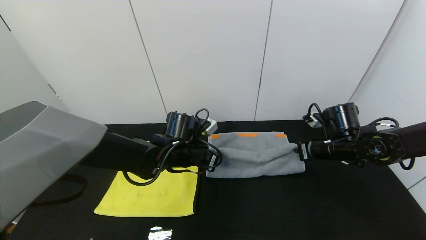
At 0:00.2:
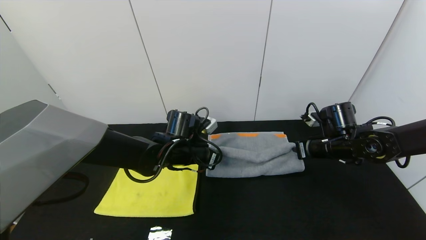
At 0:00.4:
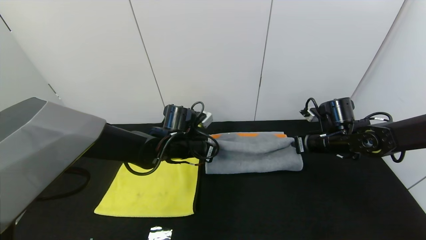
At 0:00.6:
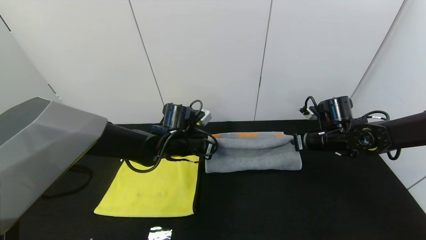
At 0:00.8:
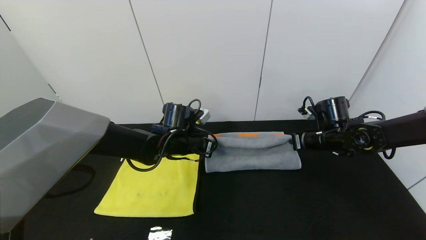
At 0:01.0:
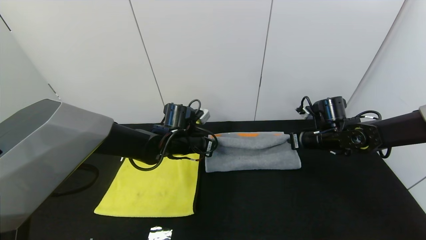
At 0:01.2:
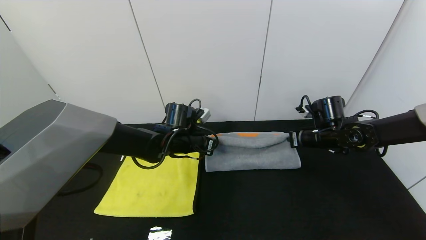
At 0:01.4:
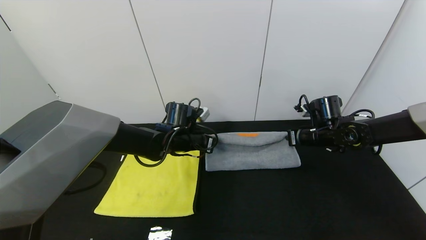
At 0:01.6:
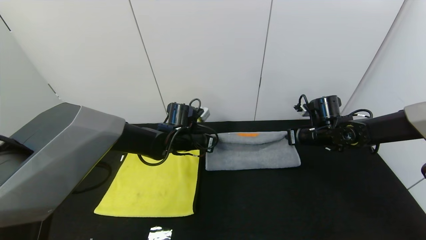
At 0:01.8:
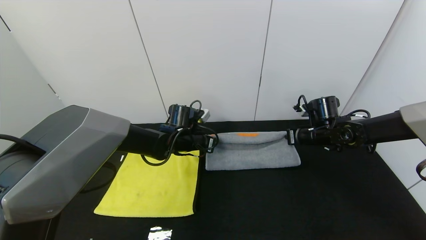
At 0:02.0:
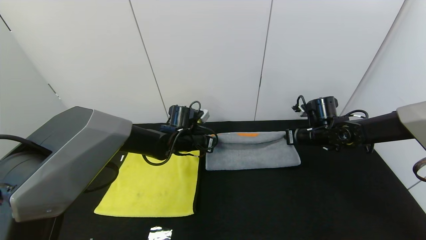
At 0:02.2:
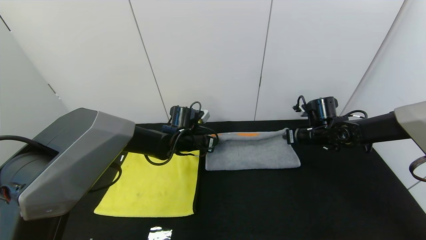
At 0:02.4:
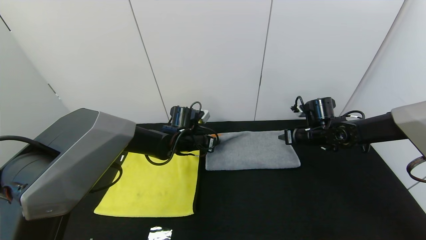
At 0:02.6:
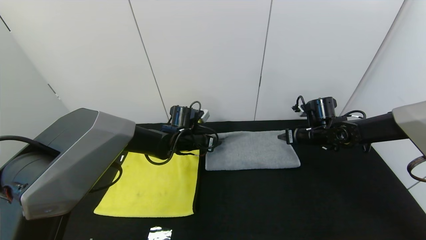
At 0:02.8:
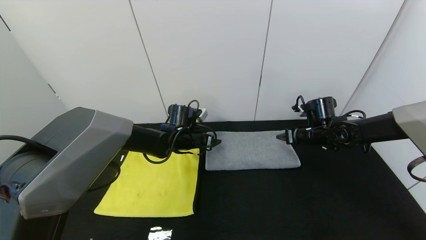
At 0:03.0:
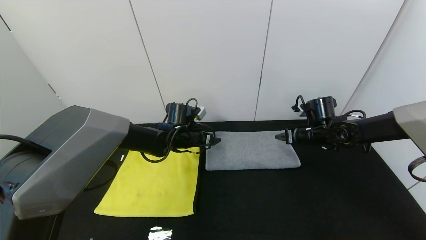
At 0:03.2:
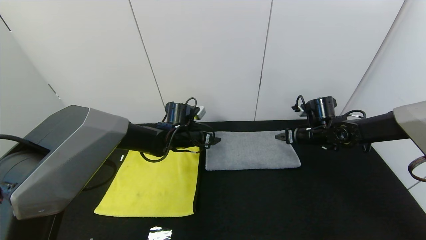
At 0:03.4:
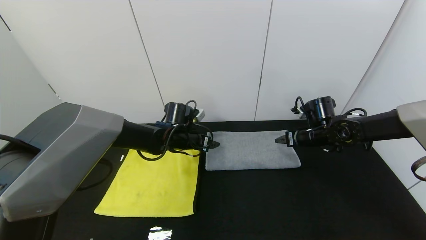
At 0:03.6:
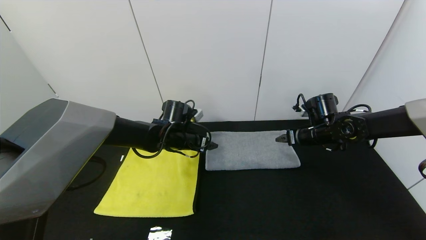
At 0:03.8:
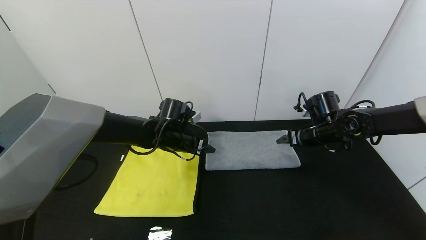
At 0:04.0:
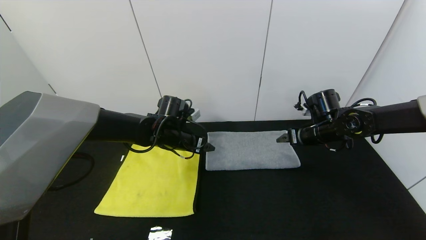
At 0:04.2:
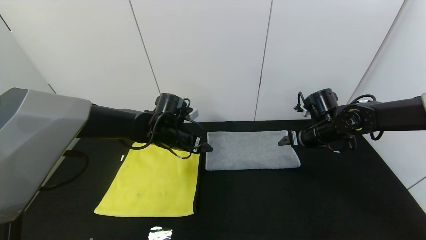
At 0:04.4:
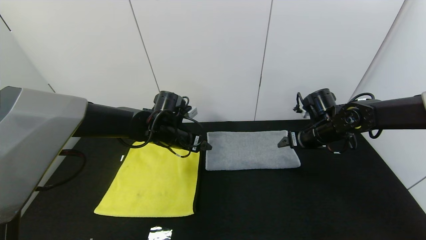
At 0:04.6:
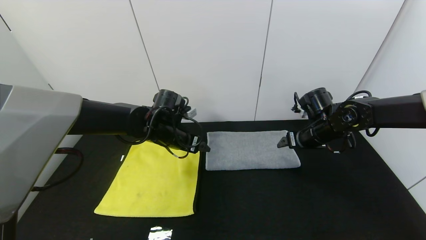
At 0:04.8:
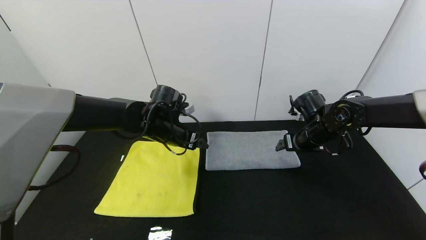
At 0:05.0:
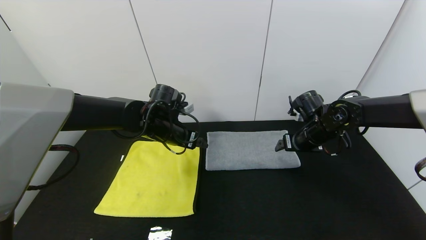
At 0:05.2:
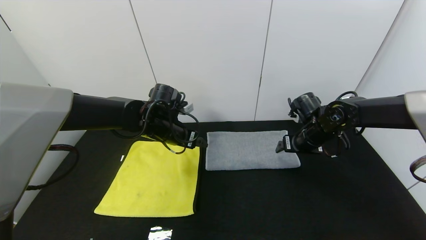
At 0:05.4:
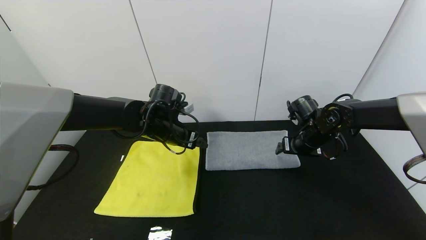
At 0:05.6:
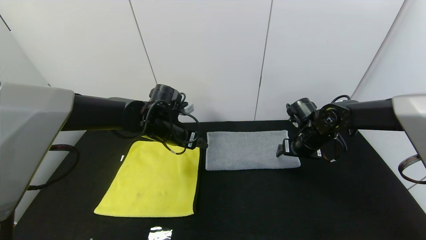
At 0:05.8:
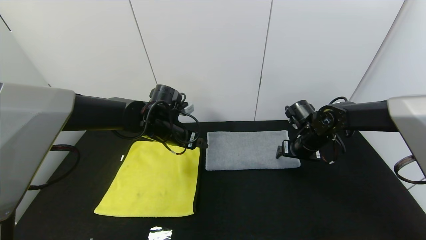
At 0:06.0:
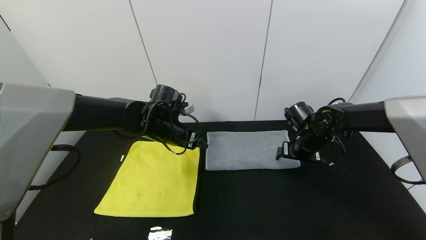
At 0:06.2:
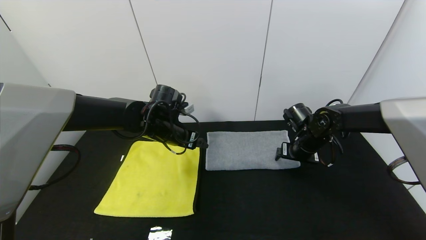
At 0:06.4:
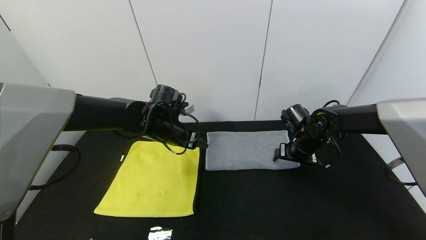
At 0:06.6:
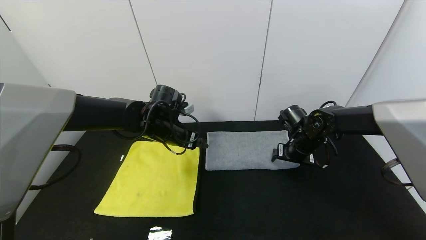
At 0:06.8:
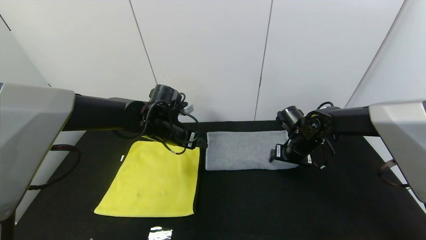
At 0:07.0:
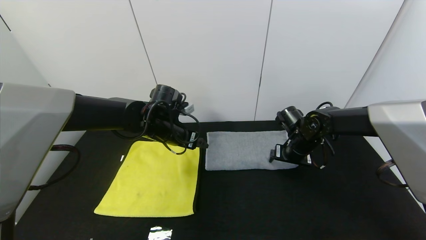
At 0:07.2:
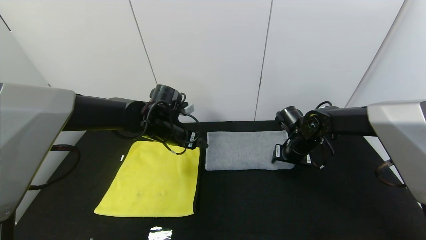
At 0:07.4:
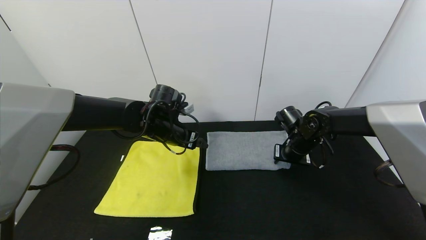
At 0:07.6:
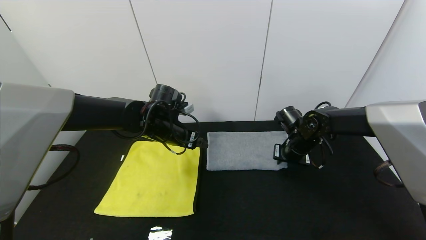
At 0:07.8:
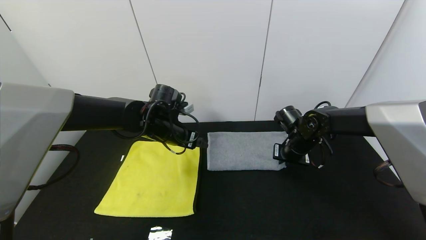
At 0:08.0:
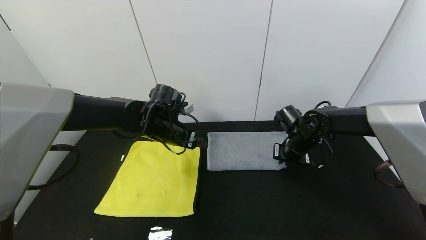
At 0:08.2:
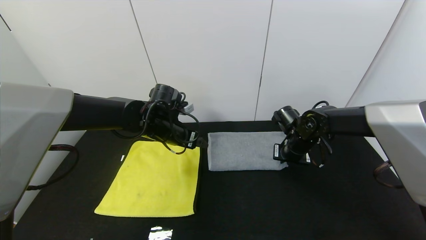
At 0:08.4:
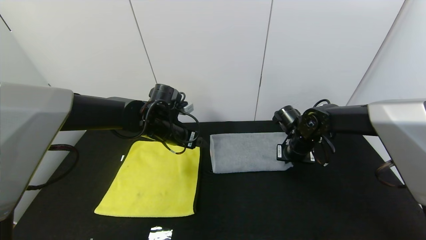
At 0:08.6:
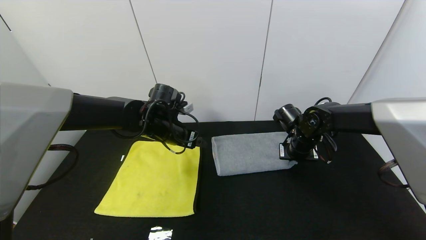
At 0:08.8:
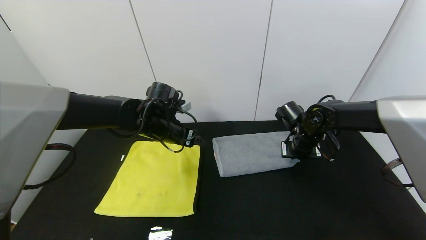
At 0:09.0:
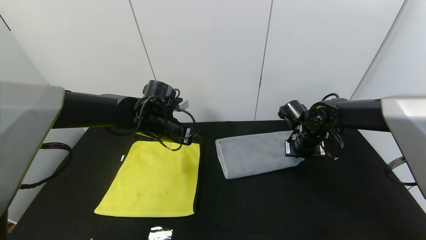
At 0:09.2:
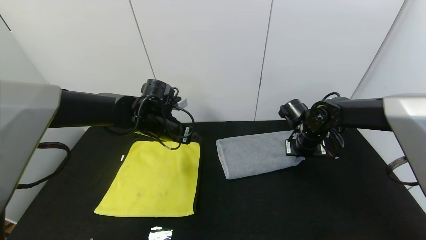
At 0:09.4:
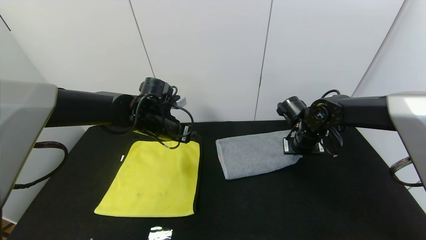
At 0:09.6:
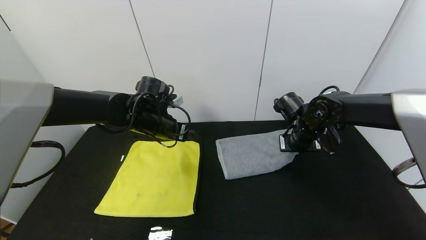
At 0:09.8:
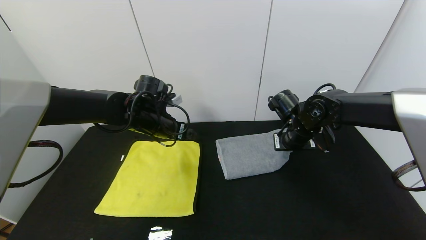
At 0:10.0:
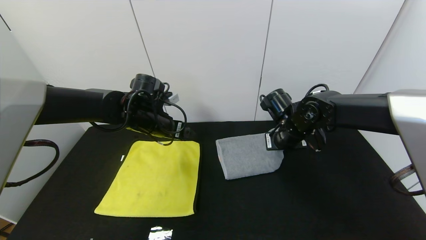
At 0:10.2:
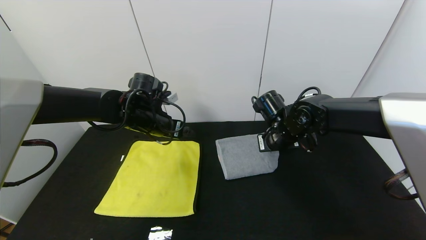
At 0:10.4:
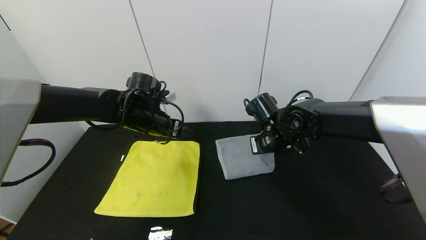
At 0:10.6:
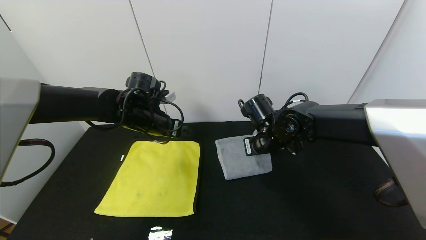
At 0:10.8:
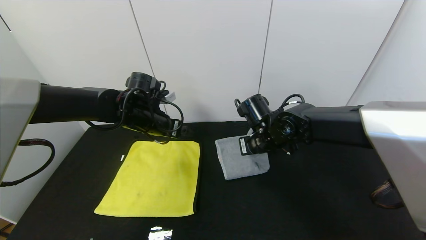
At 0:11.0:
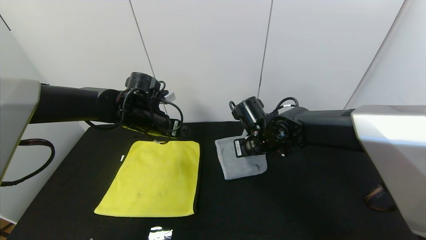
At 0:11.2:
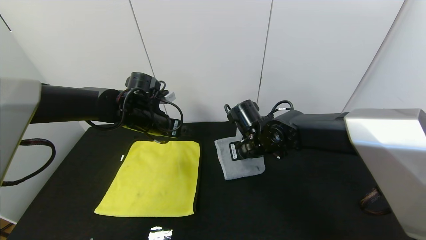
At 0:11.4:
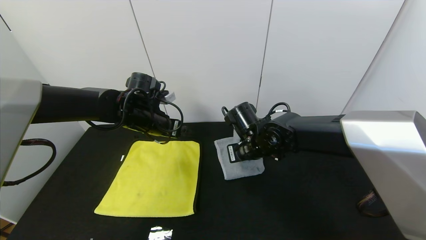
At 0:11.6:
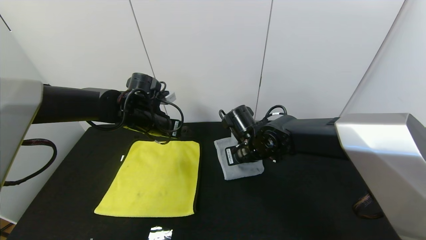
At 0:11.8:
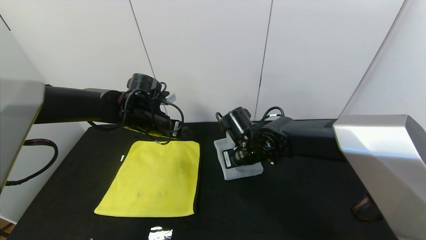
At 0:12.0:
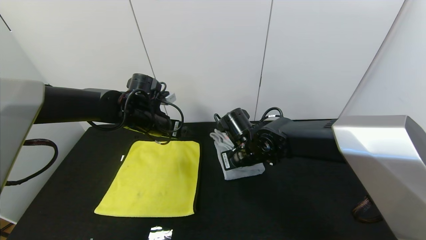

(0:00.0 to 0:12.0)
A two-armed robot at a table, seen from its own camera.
Task of the whole recording: Use the gripper to fold the yellow towel and grey towel in half twice,then put the yellow towel on the grey towel.
Step, 0:00.0 - 0:02.8: Fold the gray towel upwards with the left gripper.
Step, 0:00.0 - 0:02.8: Fold the gray towel upwards with the right gripper.
0:00.0 - 0:01.6: The two grippers go about 5 cm forward.
0:01.6 - 0:03.0: The left gripper opens up, while the right gripper opens its fingers.
0:03.0 - 0:04.4: The left gripper shifts by roughly 5 cm. Meanwhile the right gripper changes place by about 5 cm.
0:04.4 - 0:06.0: The grippers make only small movements.
0:06.0 - 0:07.6: The right gripper closes up.
0:07.6 - 0:09.0: The grippers move only a little.
0:09.0 - 0:10.4: The right gripper goes about 10 cm to the left.
0:10.4 - 0:12.0: The right gripper moves to the left, approximately 5 cm, and opens its fingers.

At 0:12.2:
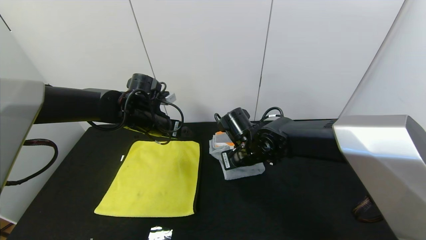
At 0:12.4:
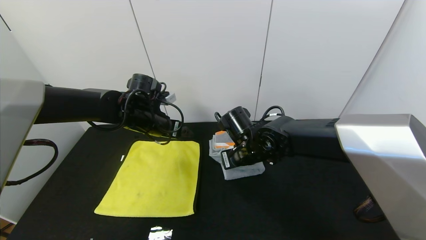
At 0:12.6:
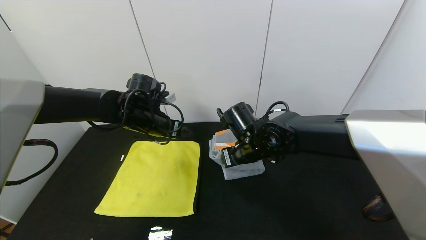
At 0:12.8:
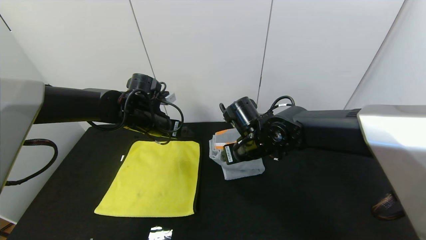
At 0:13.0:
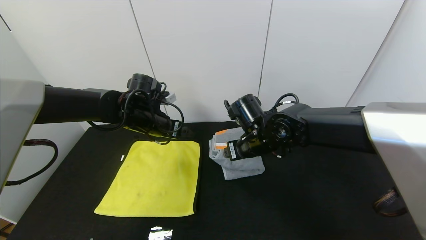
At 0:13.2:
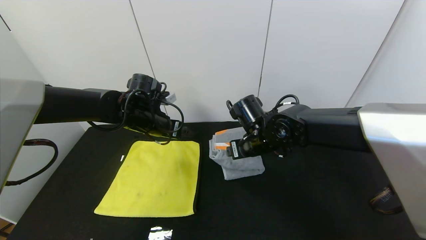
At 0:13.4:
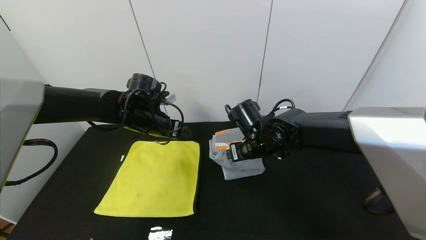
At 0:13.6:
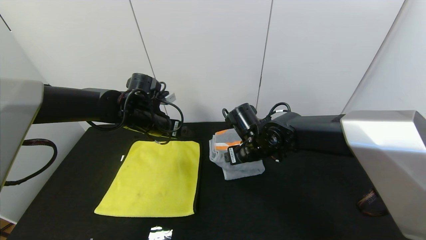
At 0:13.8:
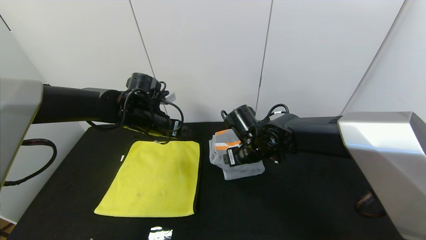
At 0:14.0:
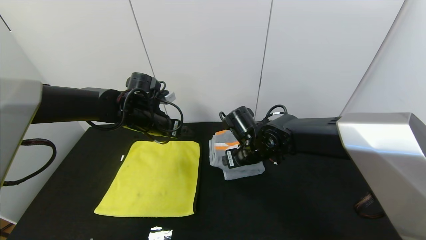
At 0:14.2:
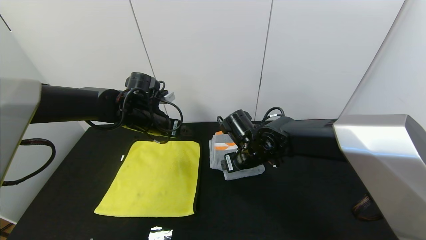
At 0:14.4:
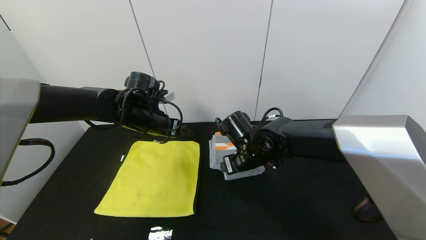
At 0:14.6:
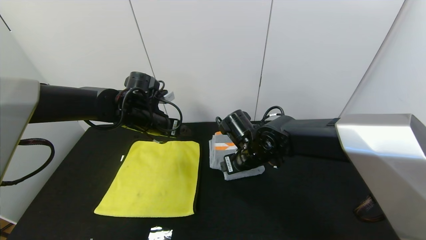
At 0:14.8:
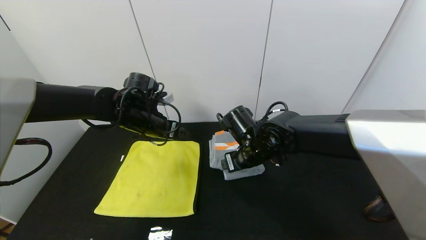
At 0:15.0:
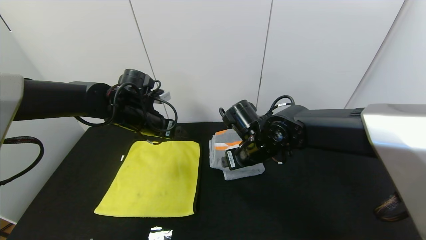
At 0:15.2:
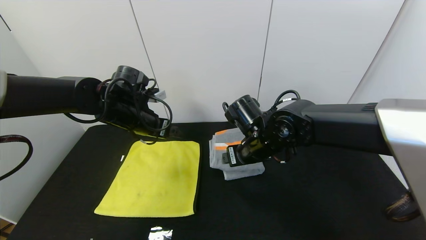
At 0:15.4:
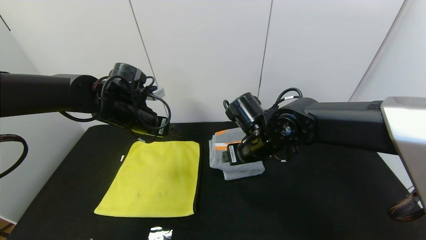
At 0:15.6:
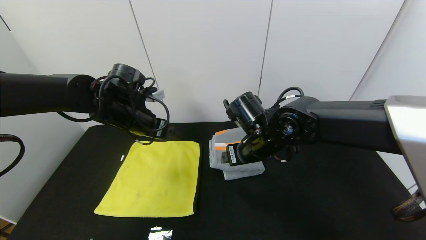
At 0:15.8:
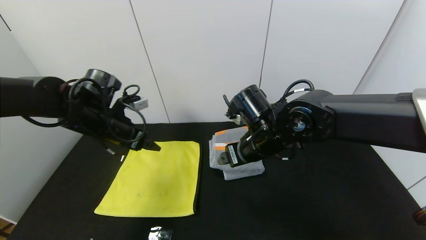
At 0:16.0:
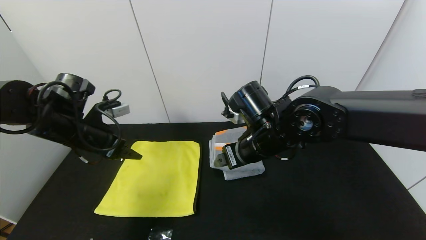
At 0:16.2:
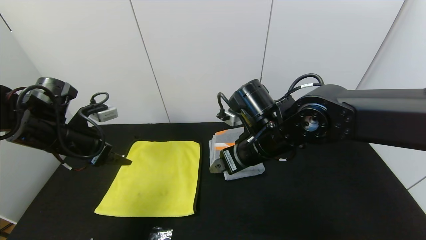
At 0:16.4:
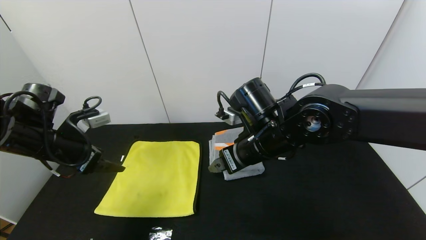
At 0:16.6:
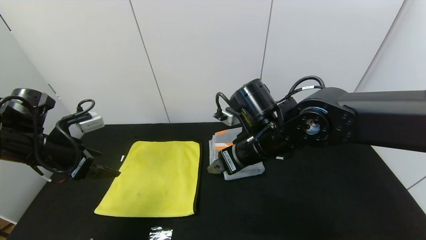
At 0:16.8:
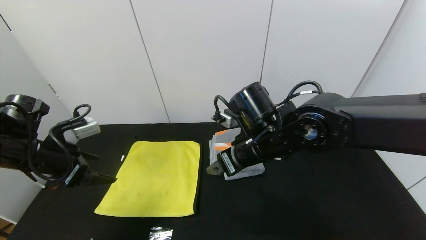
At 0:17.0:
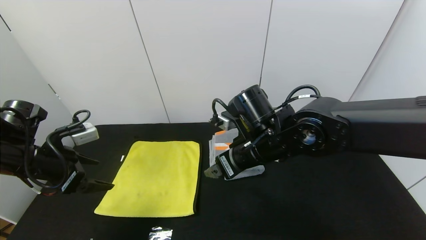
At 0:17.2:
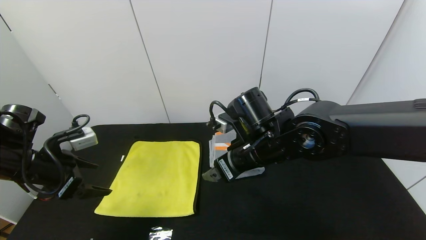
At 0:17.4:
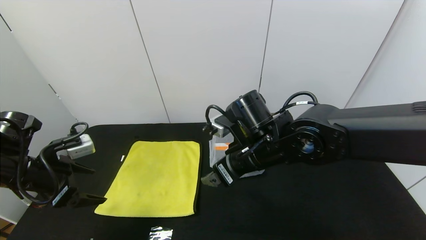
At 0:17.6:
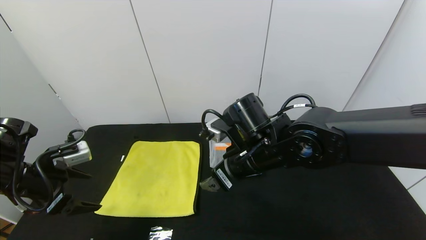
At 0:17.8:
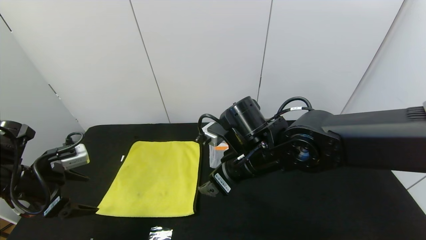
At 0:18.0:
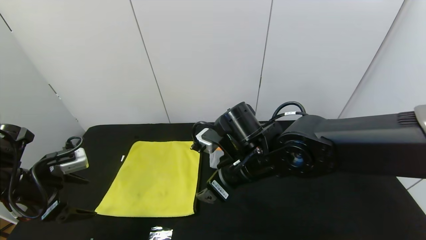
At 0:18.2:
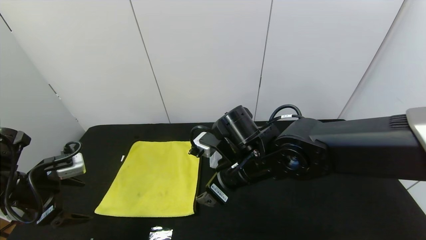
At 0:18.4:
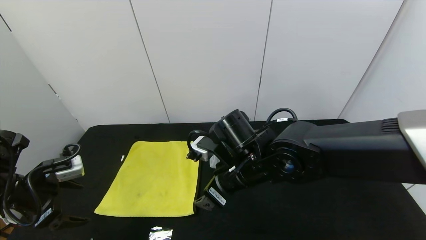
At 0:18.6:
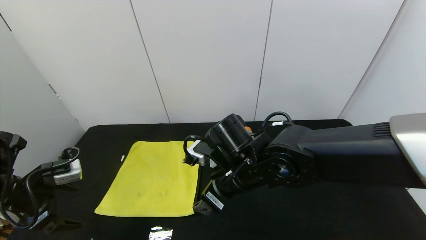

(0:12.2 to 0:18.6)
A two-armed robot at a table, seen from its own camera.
Task of the whole recording: Use the gripper to fold the yellow towel and grey towel in half twice,then put the yellow towel on the grey towel.
Step, 0:12.8 - 0:14.6: Press the gray towel with the right gripper.
0:12.2 - 0:13.8: The right gripper opens its fingers.
0:13.8 - 0:15.4: The right gripper changes place by about 5 cm.
0:15.4 - 0:17.0: The left gripper shifts approximately 20 cm to the left and backward.
0:17.0 - 0:18.6: The left gripper moves approximately 5 cm. The right gripper moves some 5 cm.
